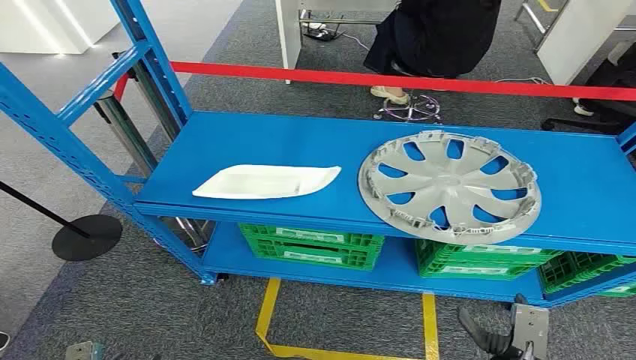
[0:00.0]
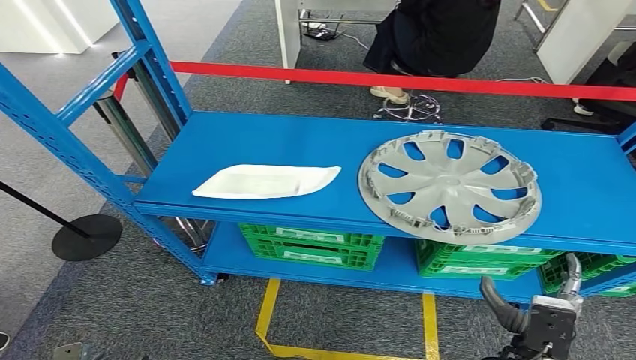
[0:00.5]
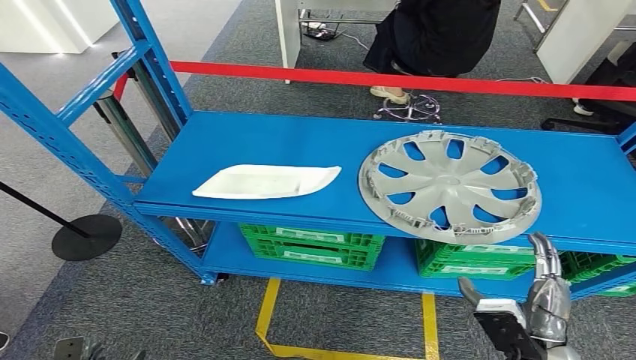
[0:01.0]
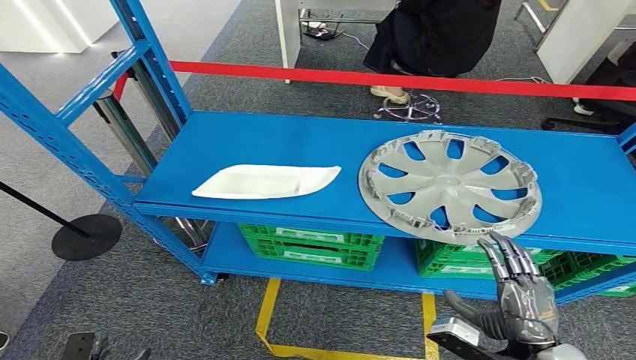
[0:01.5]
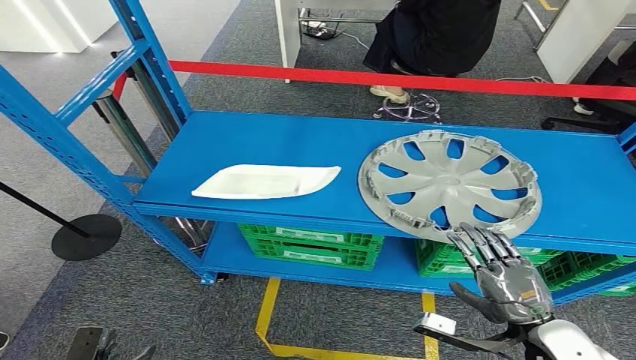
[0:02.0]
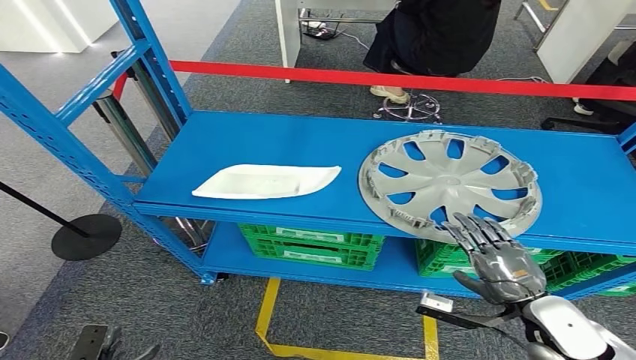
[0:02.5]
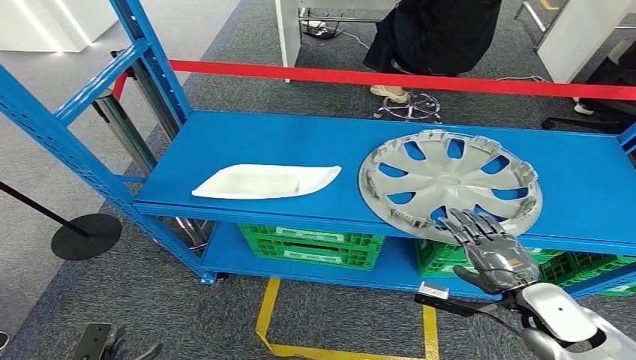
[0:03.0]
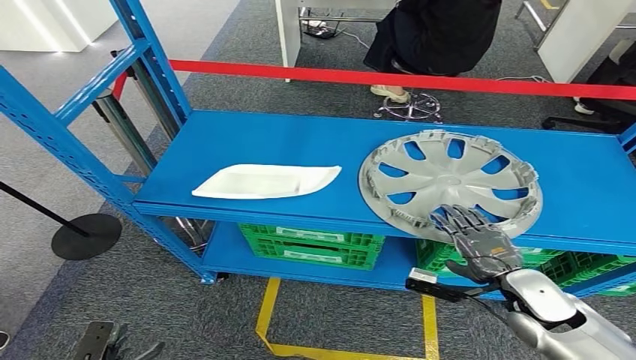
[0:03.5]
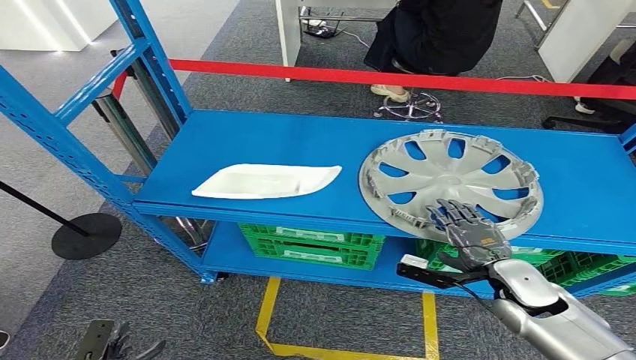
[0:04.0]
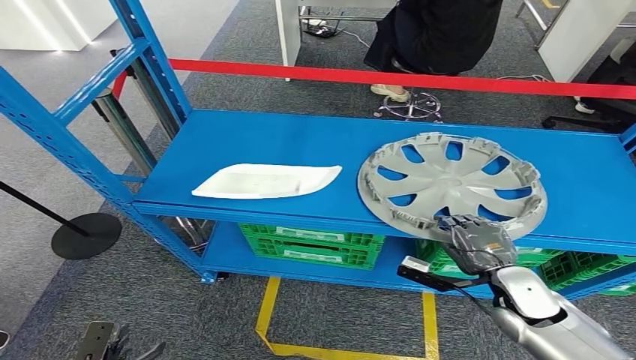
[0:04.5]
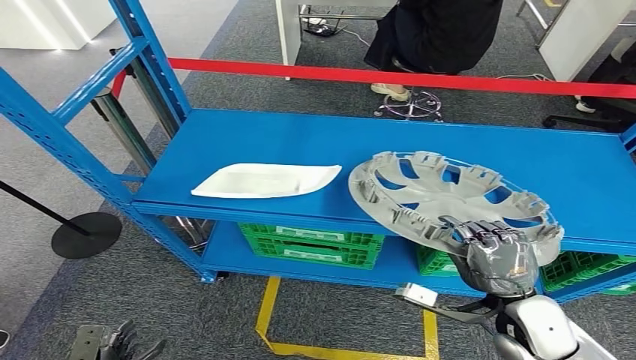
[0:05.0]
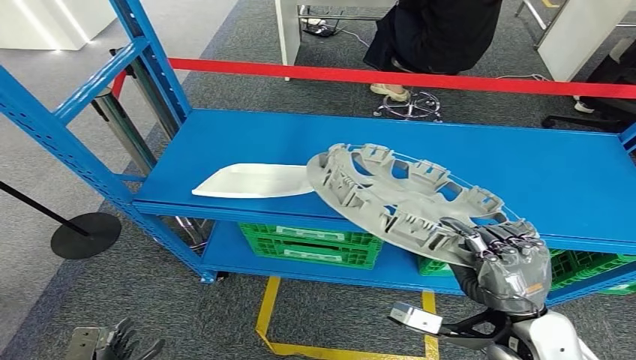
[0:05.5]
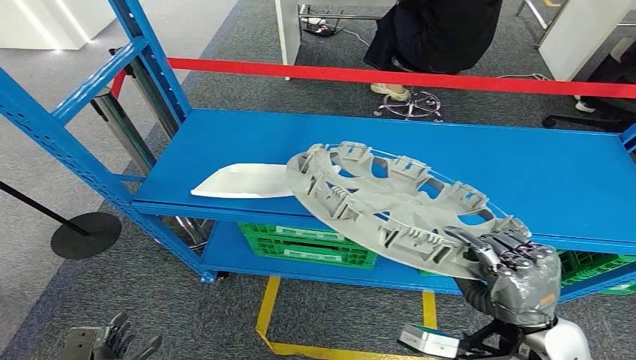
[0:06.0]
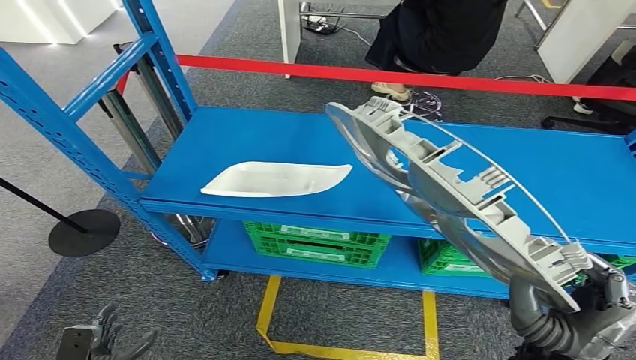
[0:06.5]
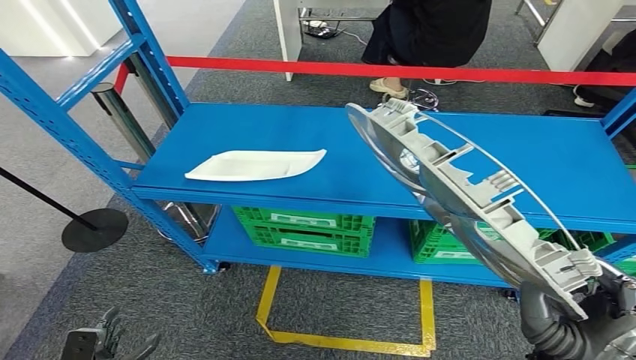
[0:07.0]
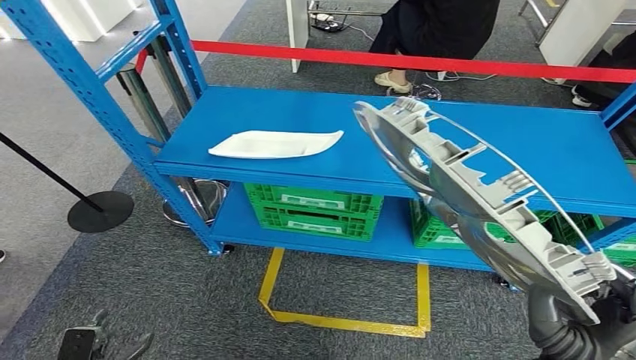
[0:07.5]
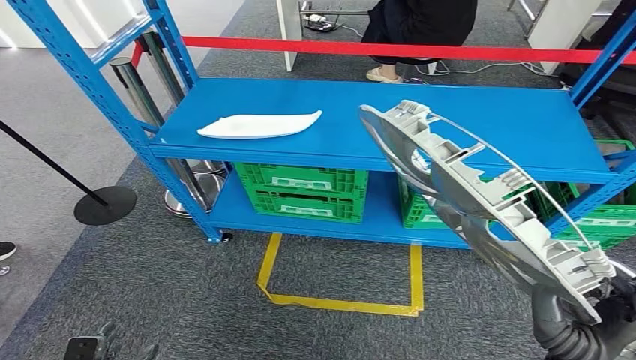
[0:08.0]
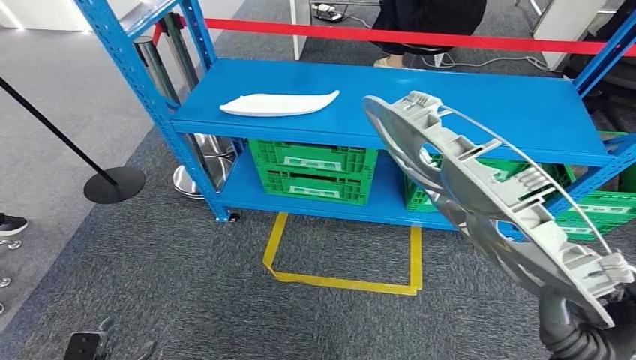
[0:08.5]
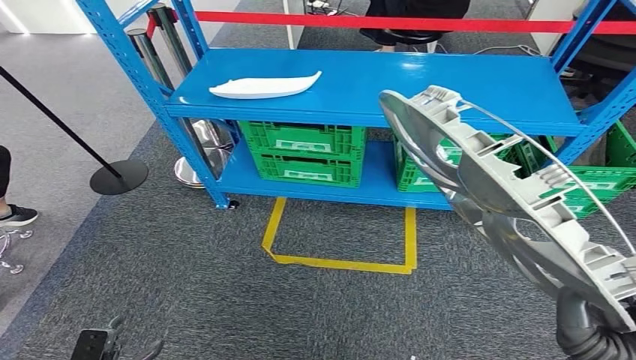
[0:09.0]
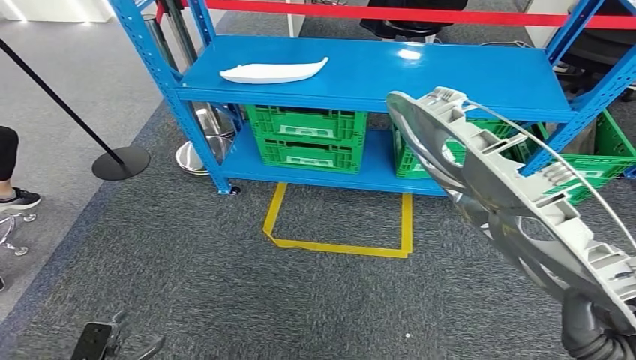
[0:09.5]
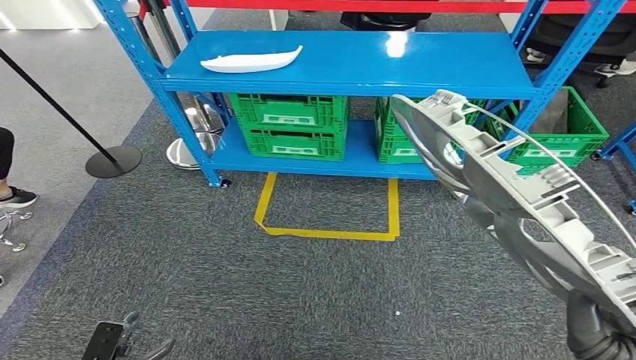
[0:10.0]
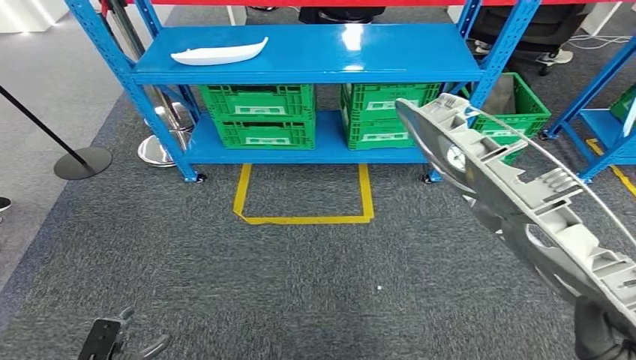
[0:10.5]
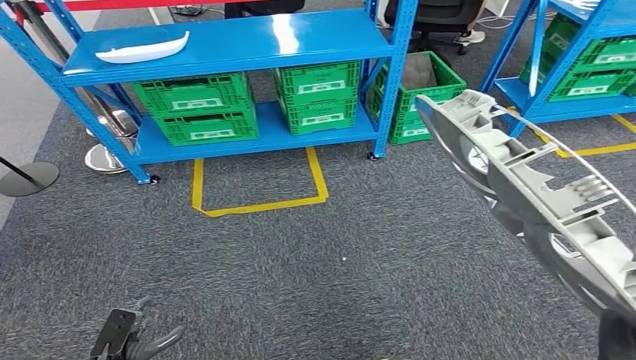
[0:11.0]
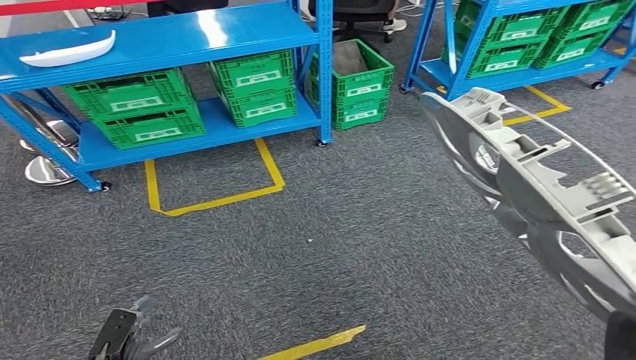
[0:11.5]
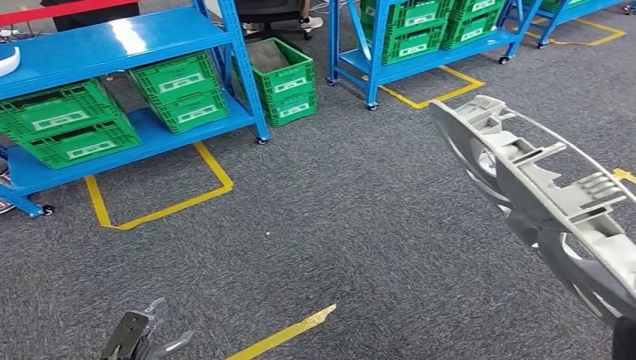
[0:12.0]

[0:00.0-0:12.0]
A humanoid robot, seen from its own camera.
Step, 0:00.0 to 0:06.5: Take small components from the rack.
Step, 0:07.0 to 0:10.0: Move the small parts to the workbench.
0:02.0 to 0:04.0: The right hand heads forward, covering roughly 10 cm.
0:04.0 to 0:06.0: The right hand shifts some 15 cm backward, upward and to the left.

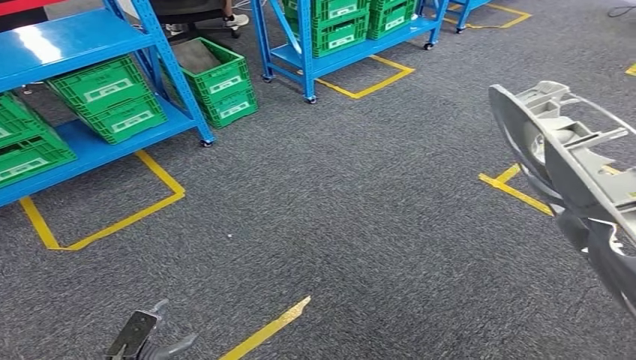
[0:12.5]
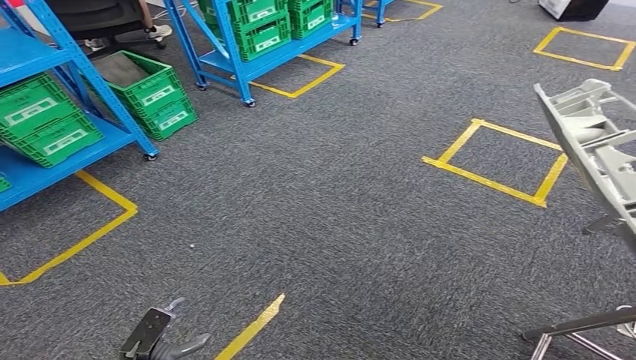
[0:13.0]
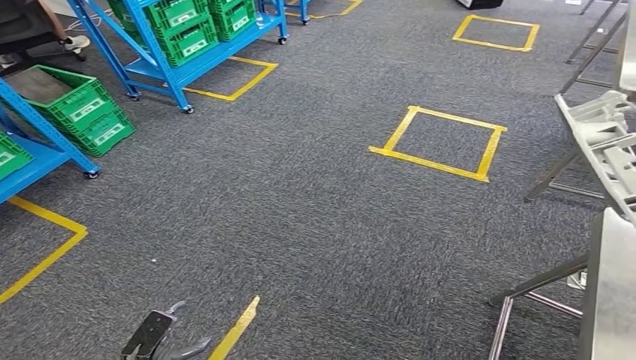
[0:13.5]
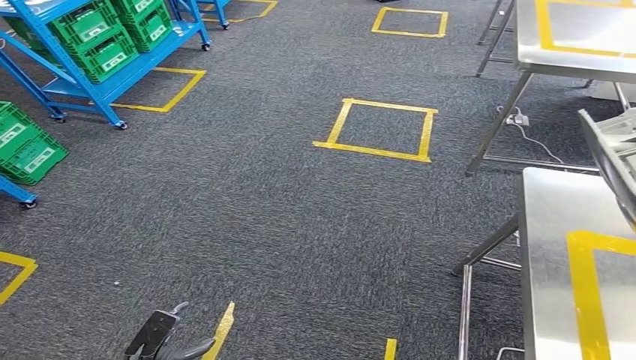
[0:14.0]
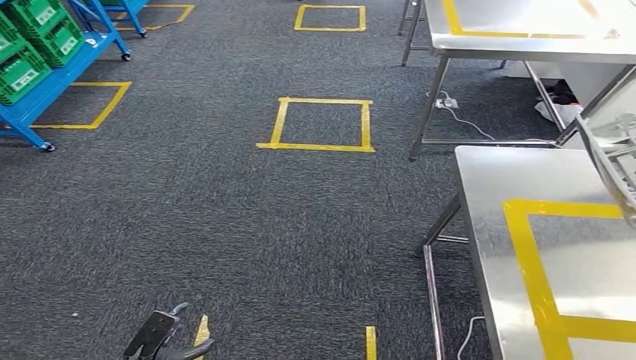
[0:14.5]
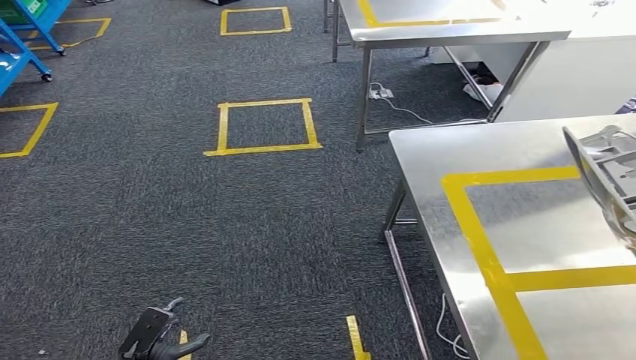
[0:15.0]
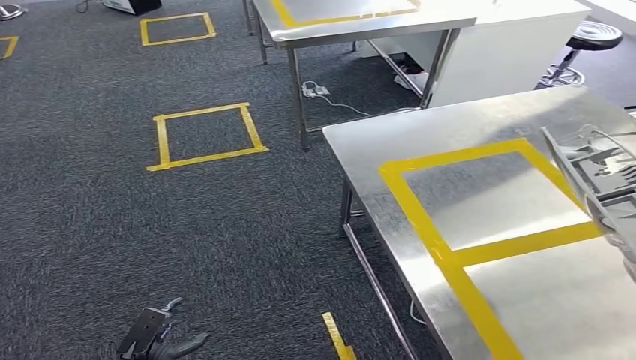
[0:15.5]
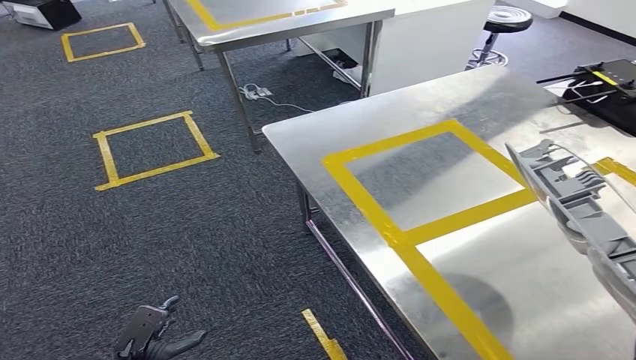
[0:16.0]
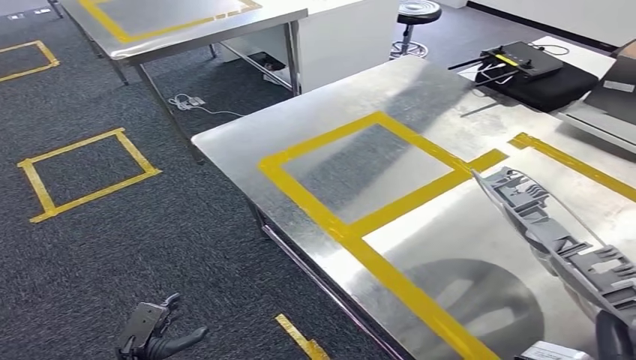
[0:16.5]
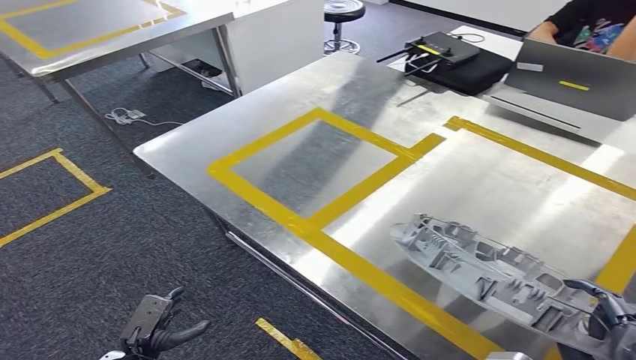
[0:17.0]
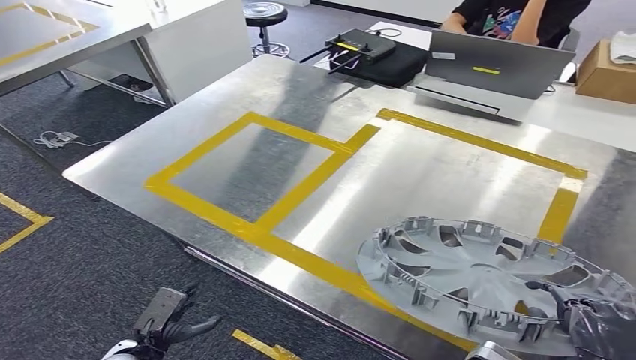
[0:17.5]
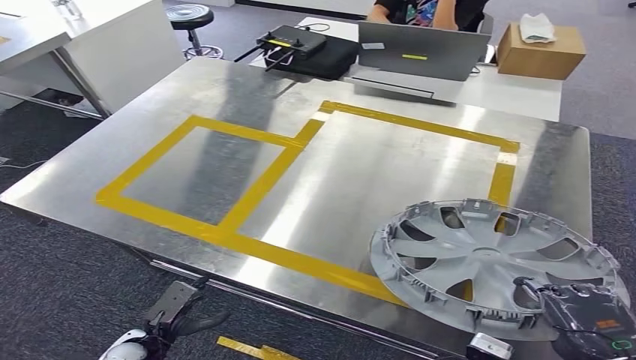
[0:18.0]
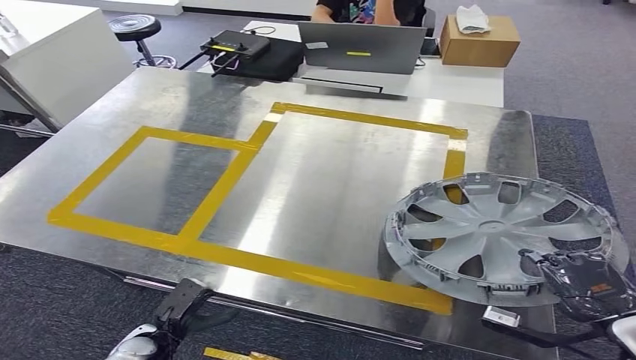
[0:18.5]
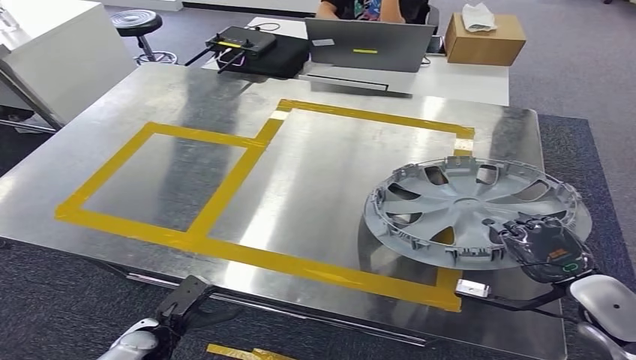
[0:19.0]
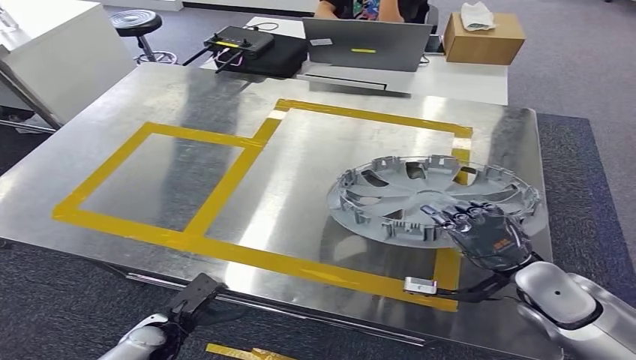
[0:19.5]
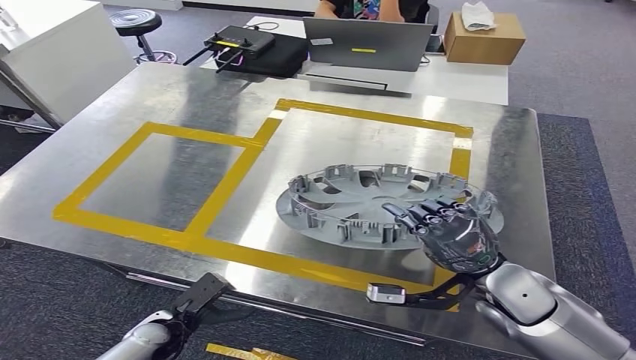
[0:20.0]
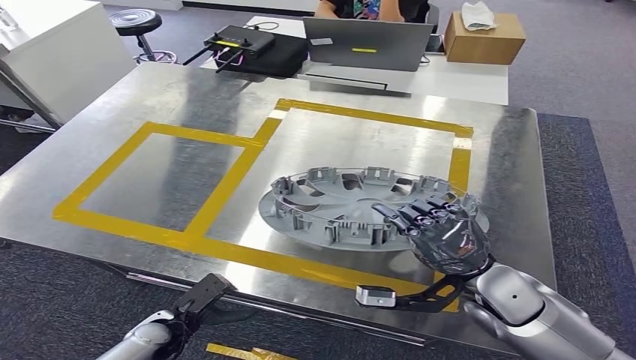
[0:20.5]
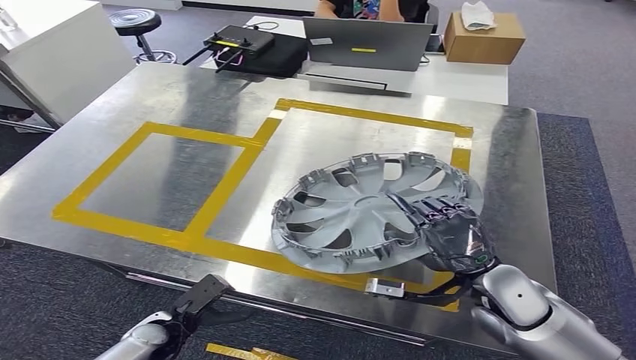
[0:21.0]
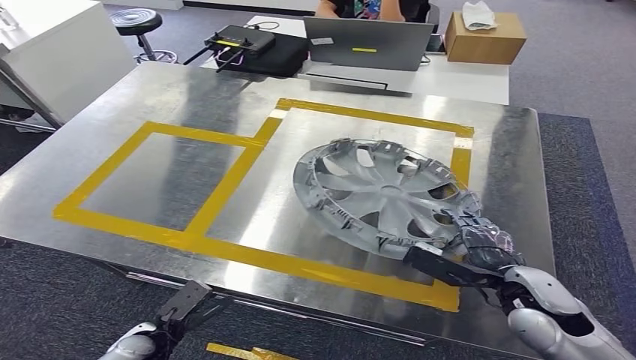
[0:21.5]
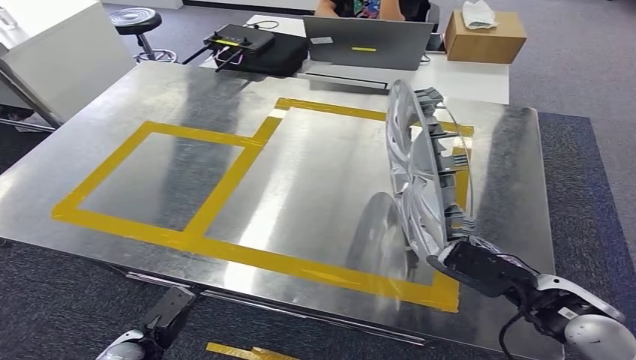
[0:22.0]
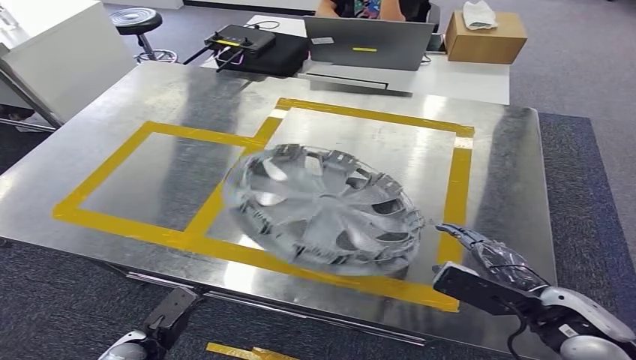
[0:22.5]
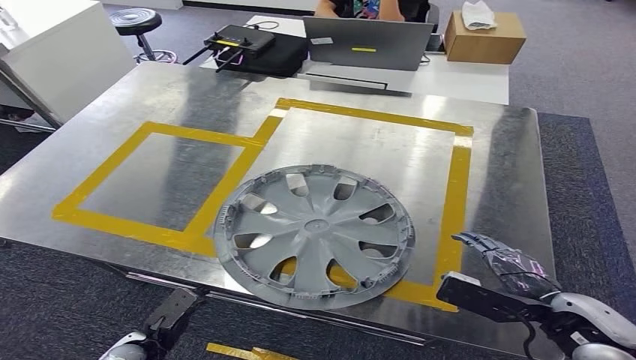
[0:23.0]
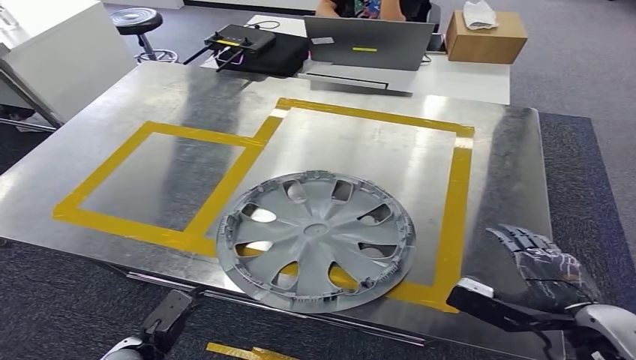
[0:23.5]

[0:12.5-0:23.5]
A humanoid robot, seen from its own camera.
Step, 0:12.5 to 0:19.0: Insert the small parts into the corresponding holes on the workbench.
0:20.0 to 0:21.5: The right hand changes place by approximately 5 cm.
0:21.5 to 0:23.5: The right hand travels backward by some 5 cm.
